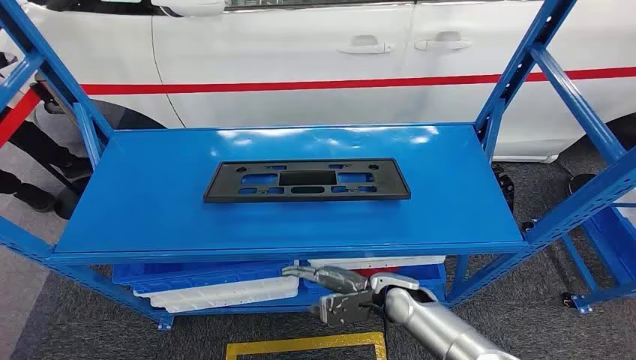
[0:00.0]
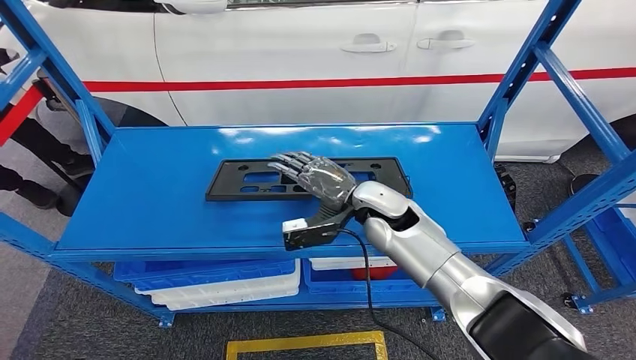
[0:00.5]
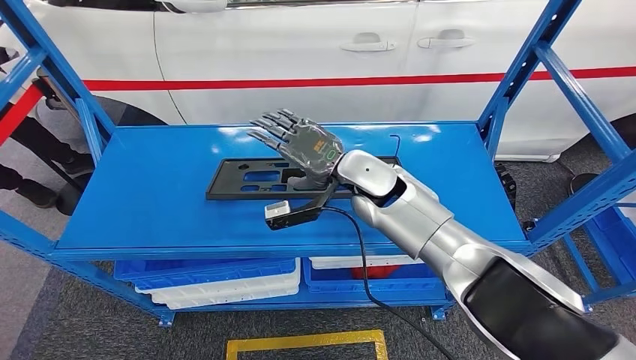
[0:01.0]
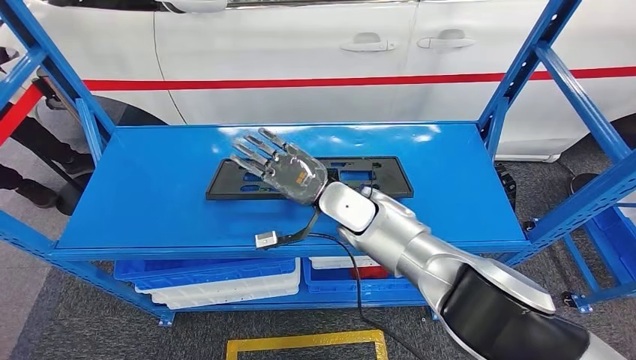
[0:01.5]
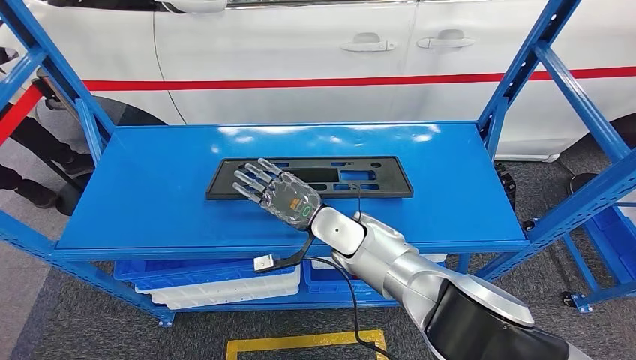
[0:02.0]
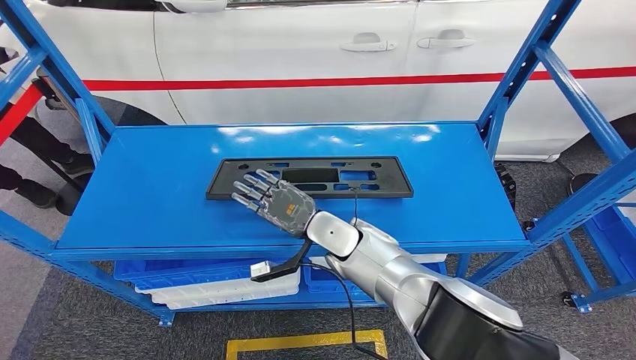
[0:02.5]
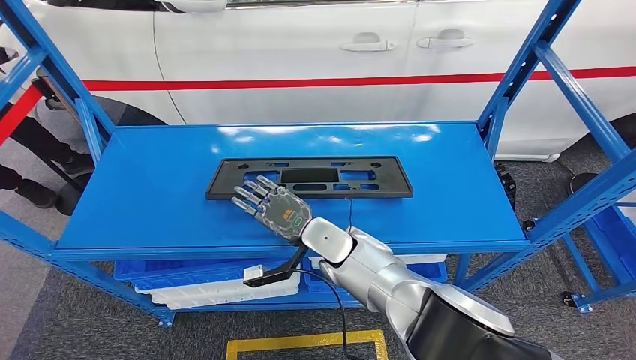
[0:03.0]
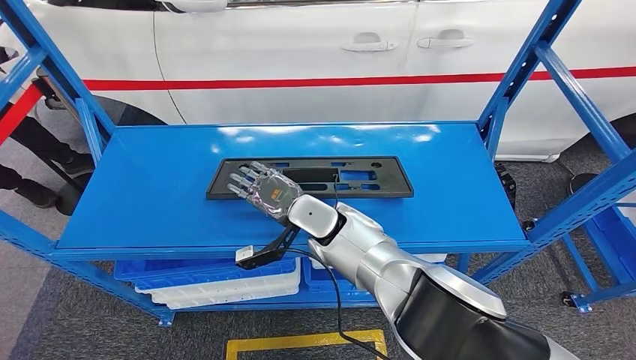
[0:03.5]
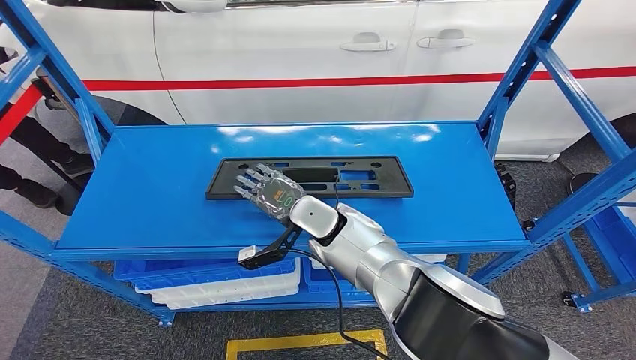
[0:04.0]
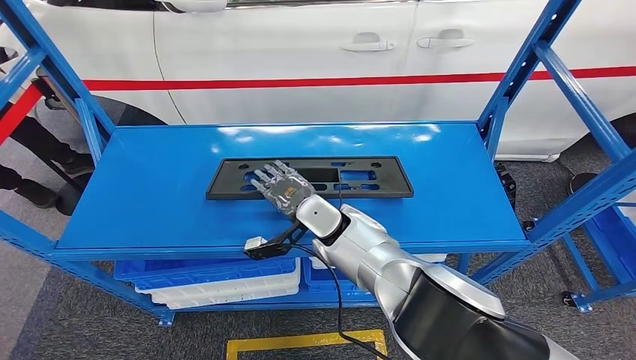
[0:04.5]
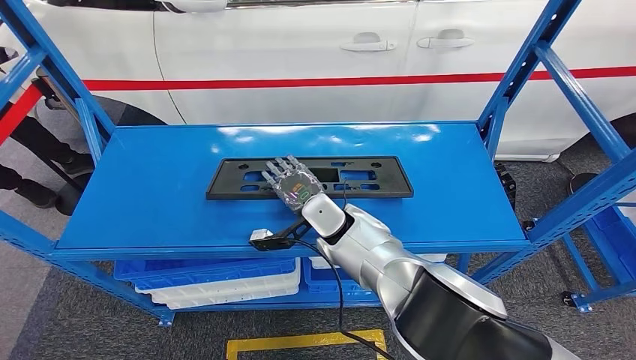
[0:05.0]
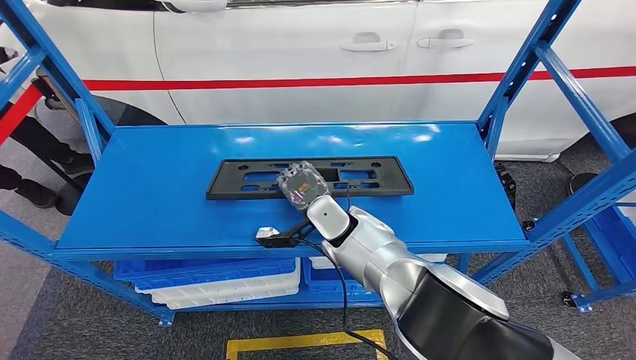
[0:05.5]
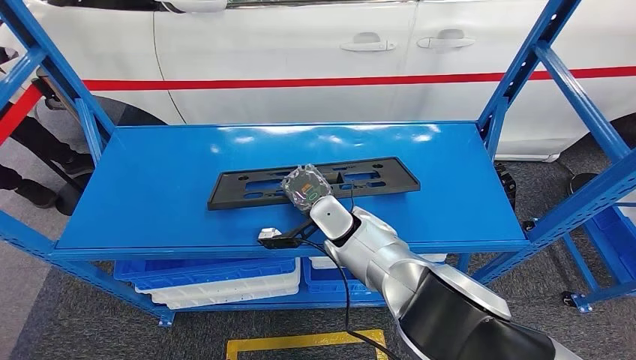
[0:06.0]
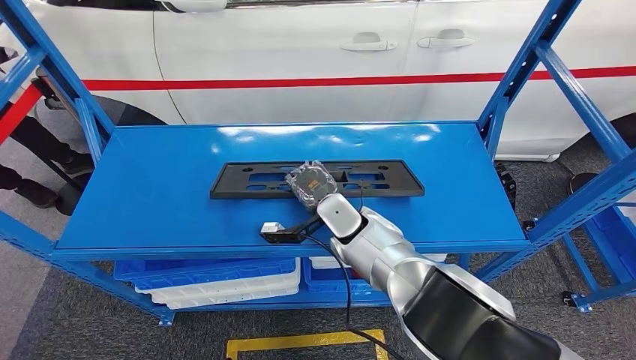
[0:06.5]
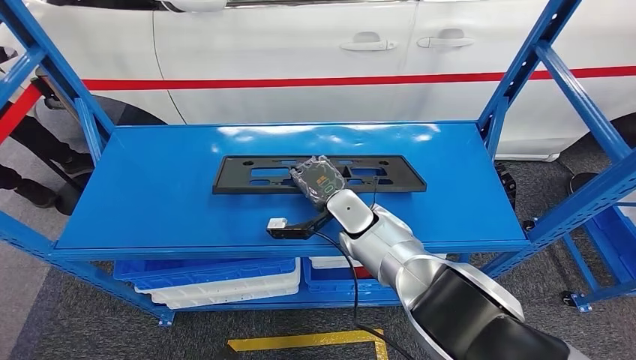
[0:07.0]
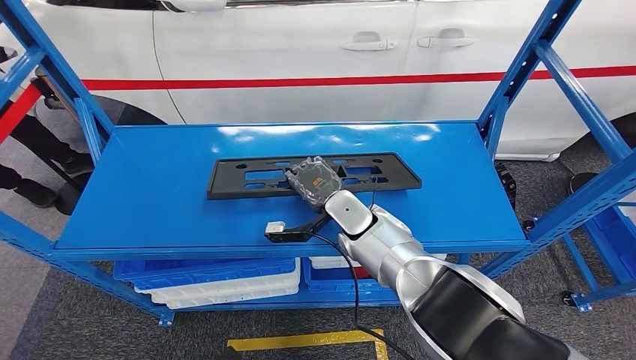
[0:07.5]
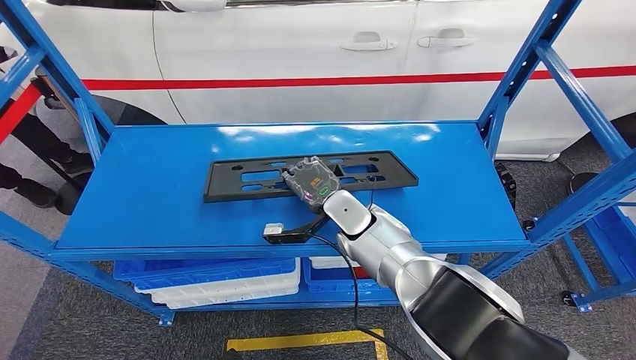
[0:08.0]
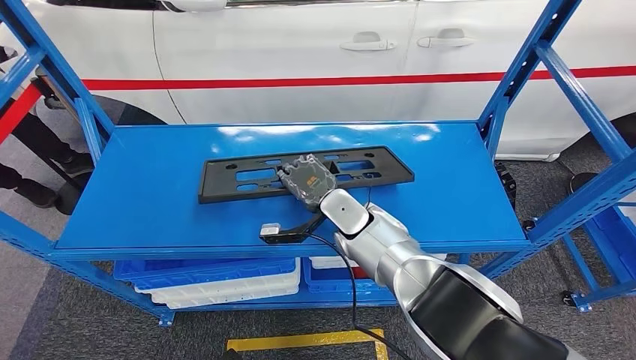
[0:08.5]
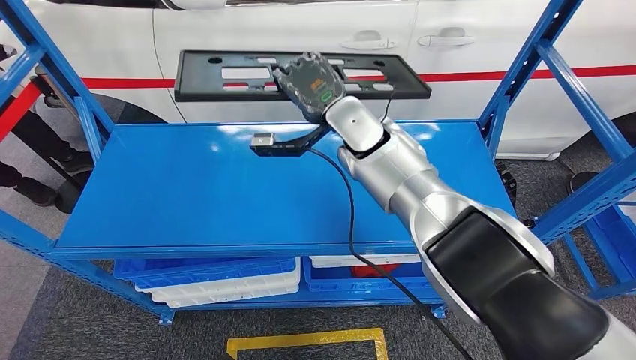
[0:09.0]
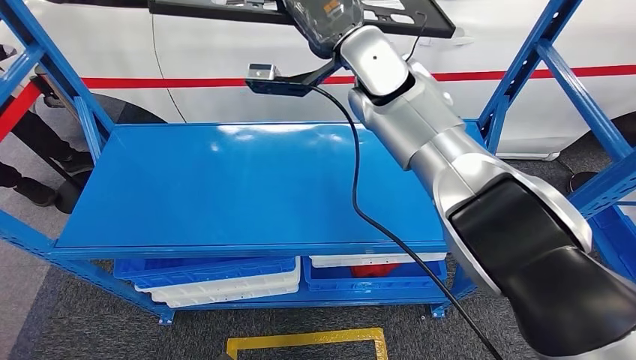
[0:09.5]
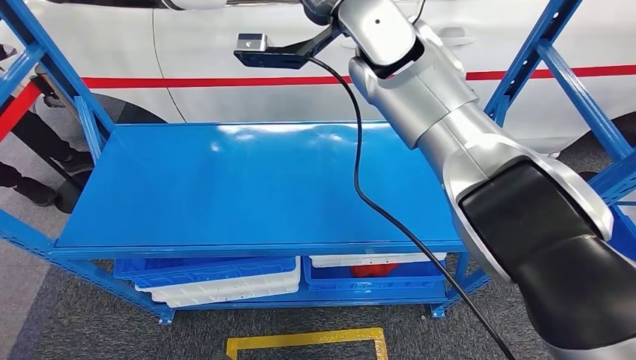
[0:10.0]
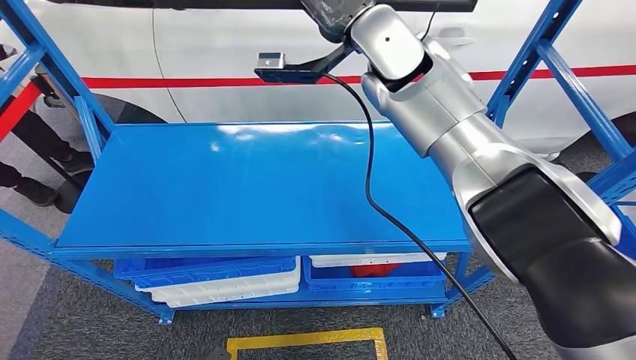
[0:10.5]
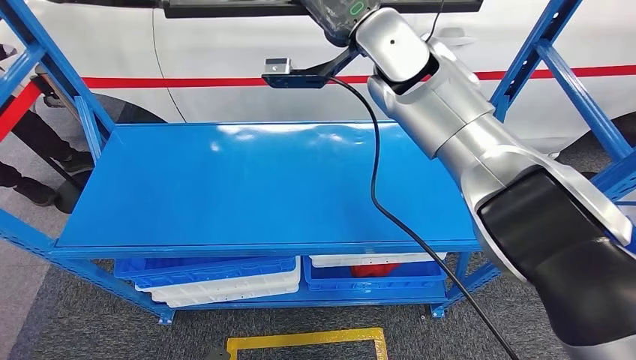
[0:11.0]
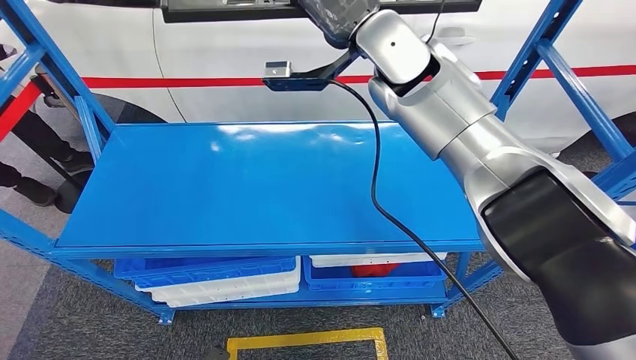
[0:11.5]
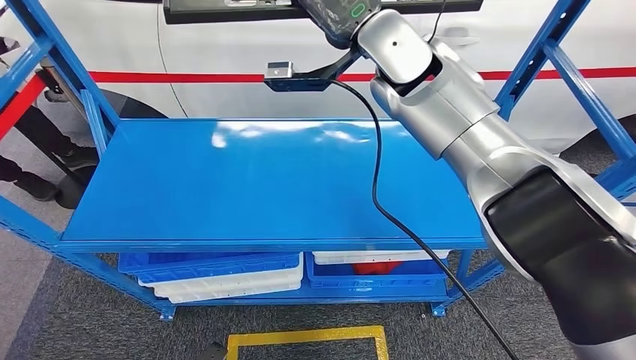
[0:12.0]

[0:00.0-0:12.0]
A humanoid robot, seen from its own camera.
Step, 0.0 to 10.0 s: Pick up the large material from the shelf.
4.0 to 6.0 s: The hands move only a little.
6.0 to 8.0 s: The hands make only small movements.

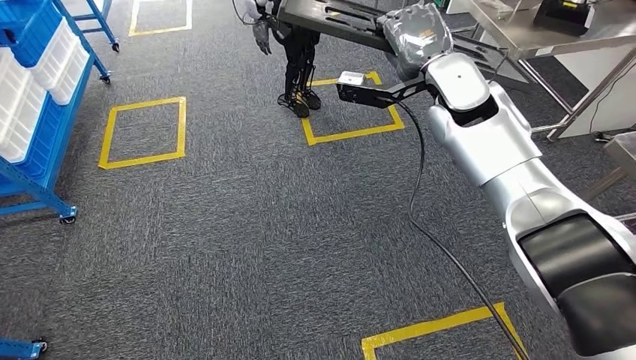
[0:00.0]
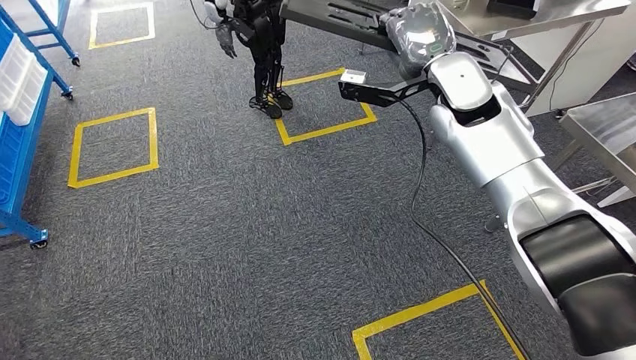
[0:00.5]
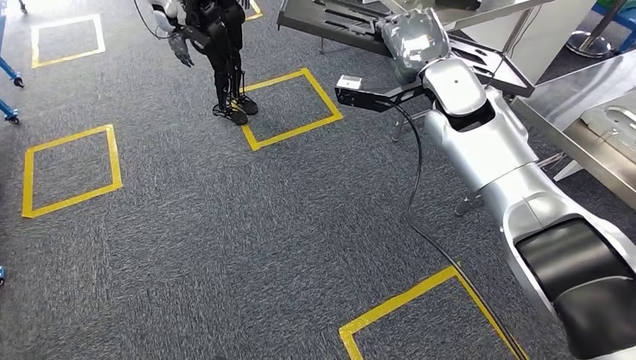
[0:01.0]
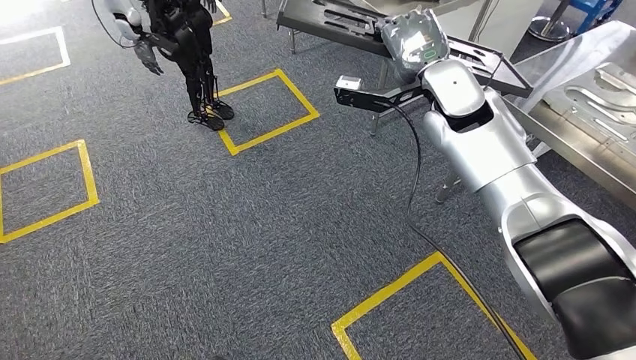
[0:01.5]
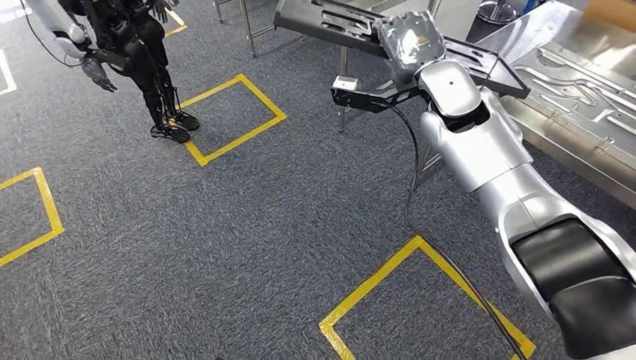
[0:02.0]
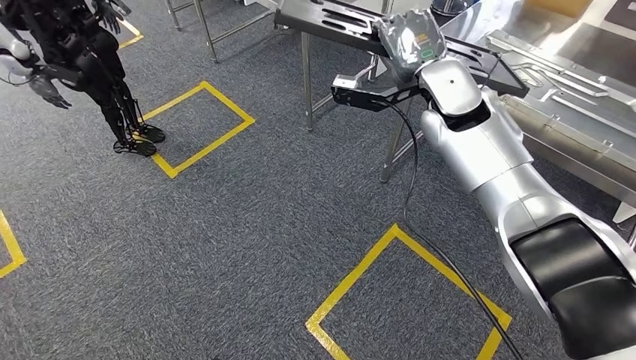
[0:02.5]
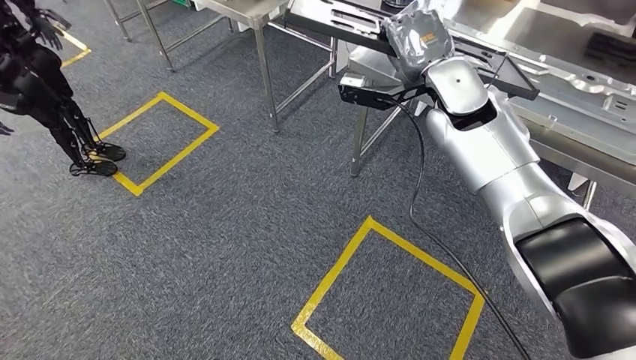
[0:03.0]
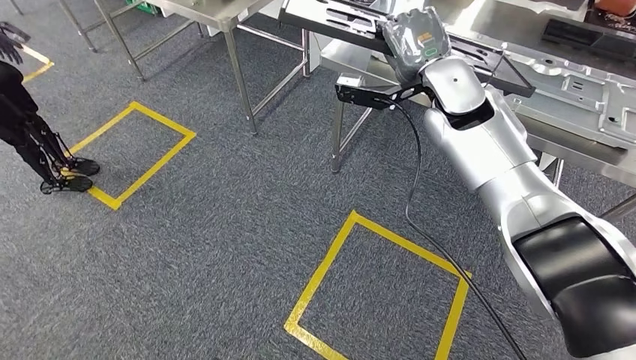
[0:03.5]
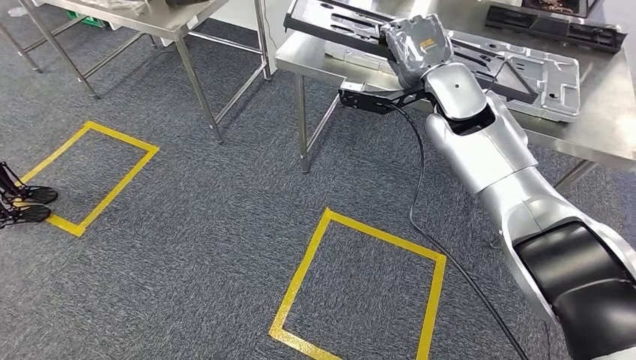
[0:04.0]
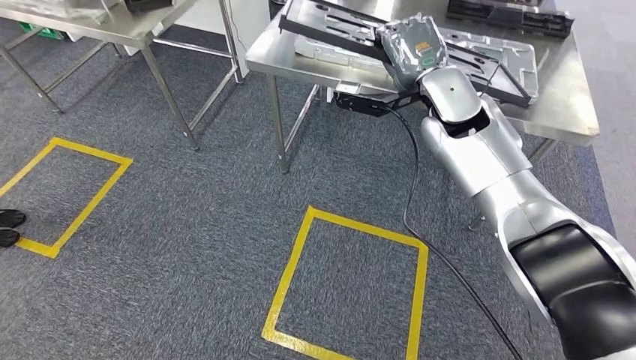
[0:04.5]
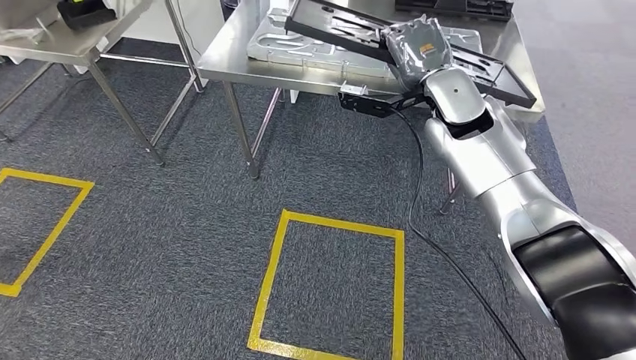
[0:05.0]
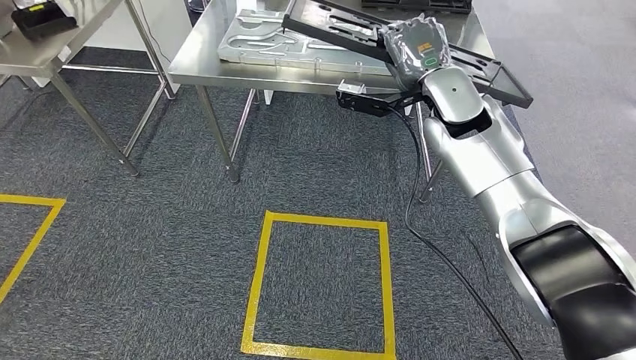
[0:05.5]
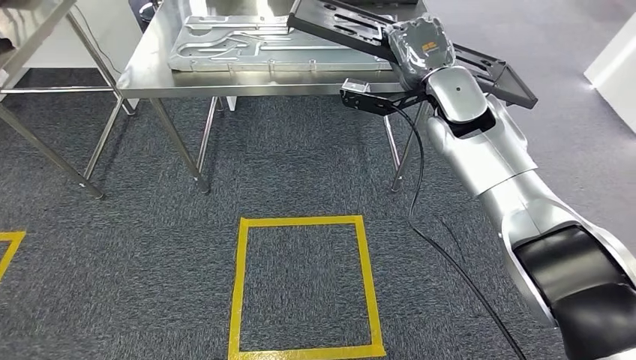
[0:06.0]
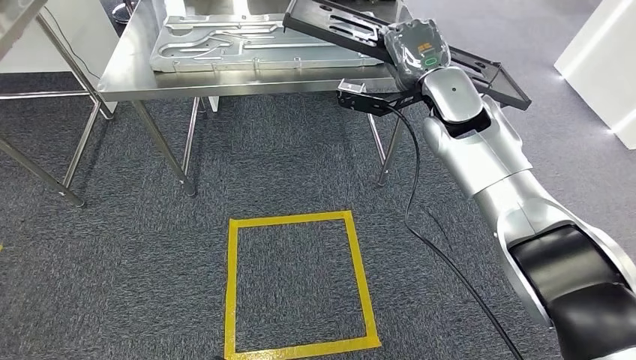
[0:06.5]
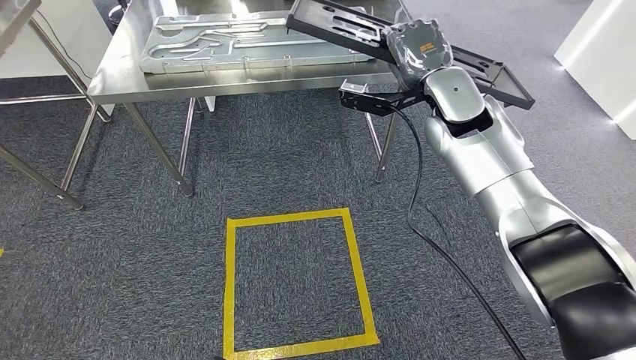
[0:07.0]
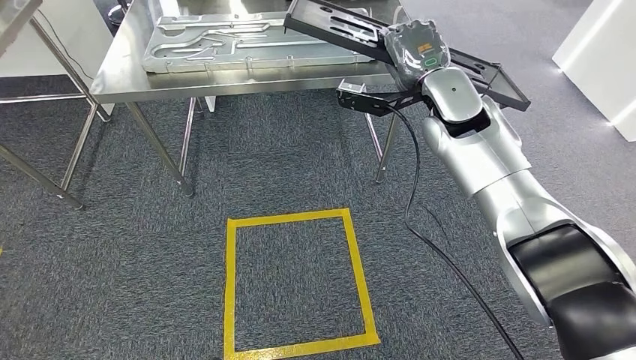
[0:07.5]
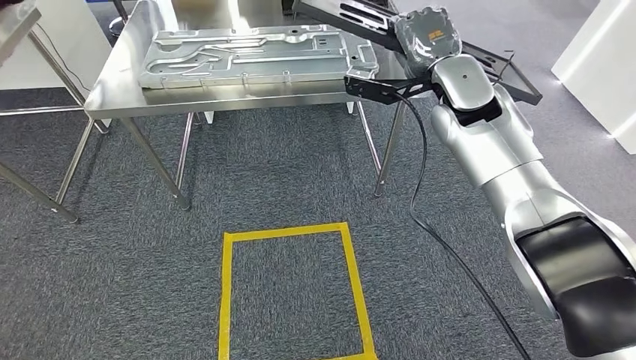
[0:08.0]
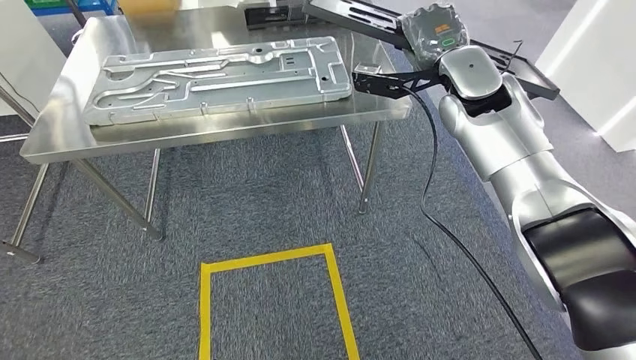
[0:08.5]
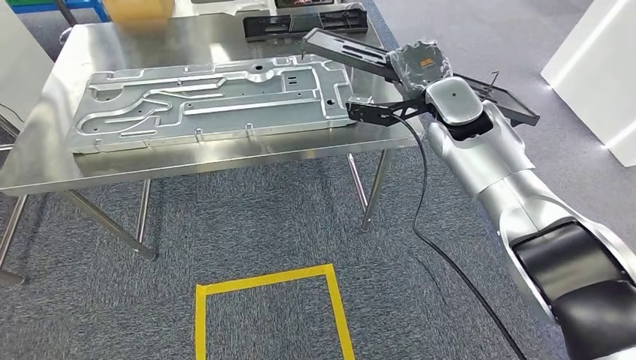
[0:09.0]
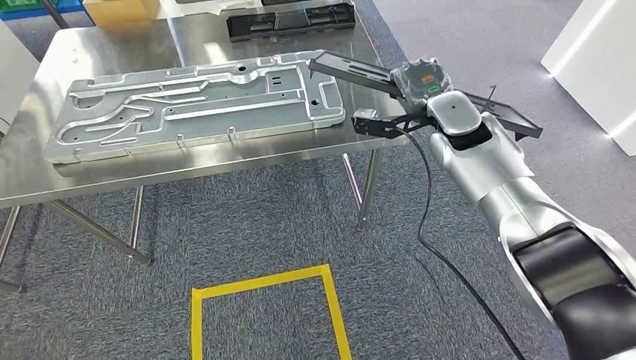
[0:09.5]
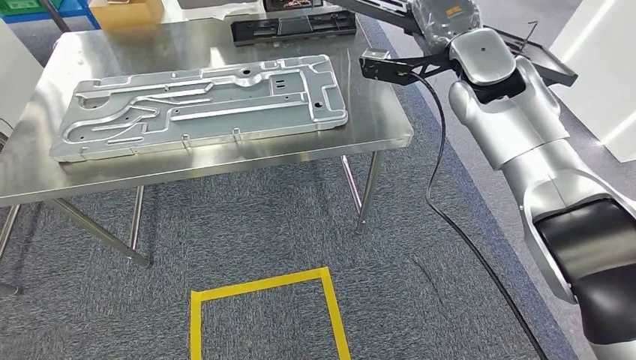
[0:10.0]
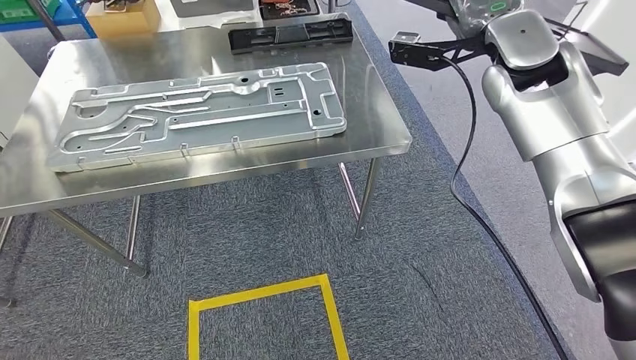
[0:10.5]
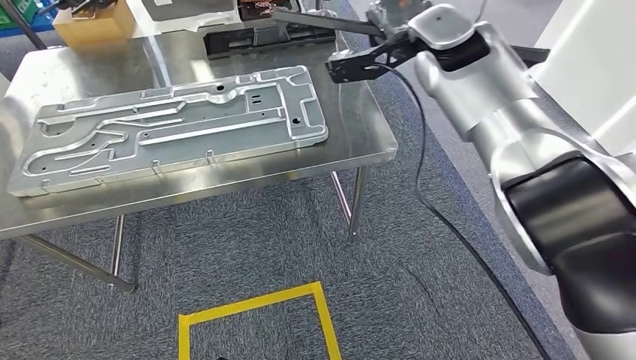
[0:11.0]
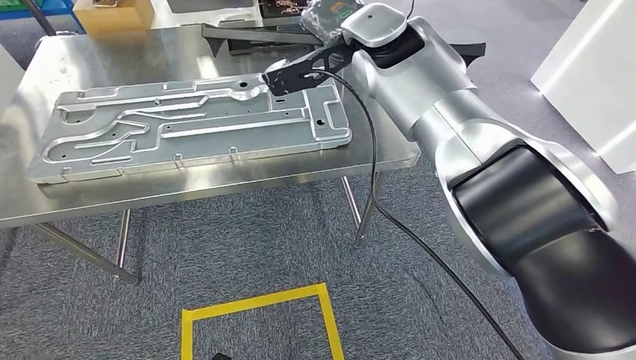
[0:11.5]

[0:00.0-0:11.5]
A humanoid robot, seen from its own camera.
Step, 0.0 to 11.5 s: Move the large material to the workbench.
